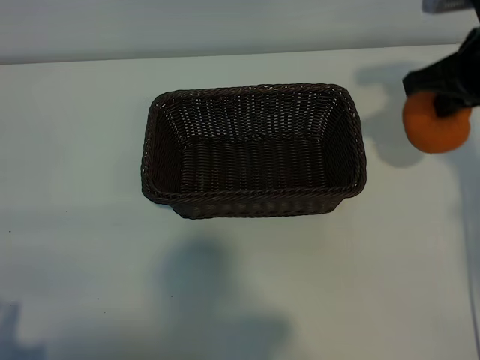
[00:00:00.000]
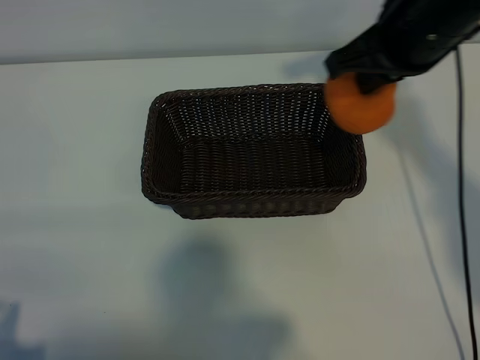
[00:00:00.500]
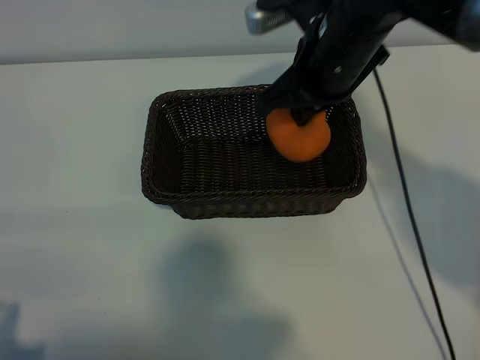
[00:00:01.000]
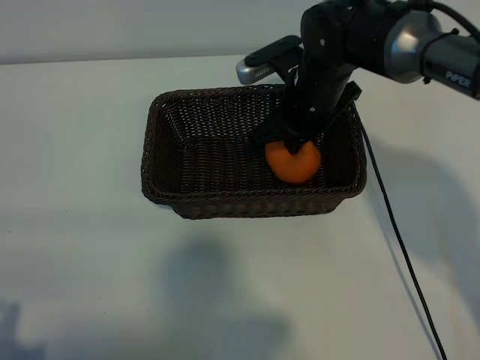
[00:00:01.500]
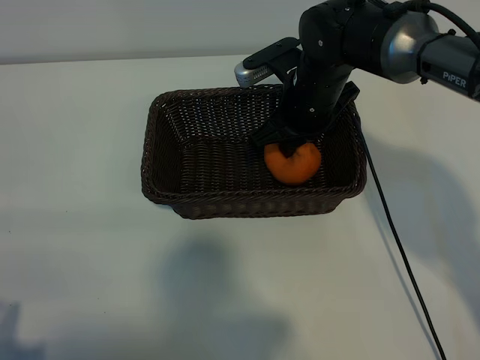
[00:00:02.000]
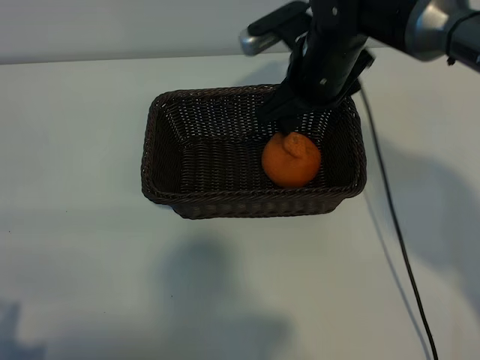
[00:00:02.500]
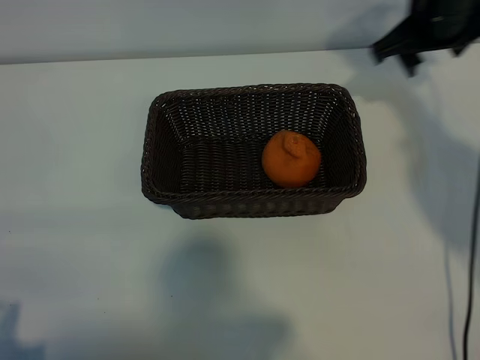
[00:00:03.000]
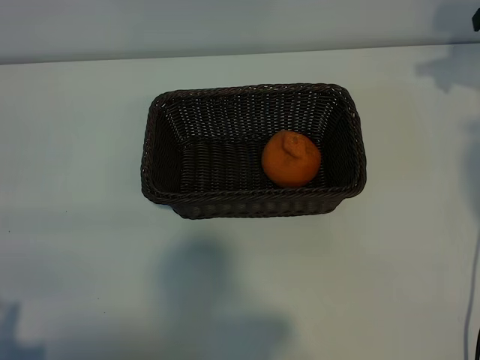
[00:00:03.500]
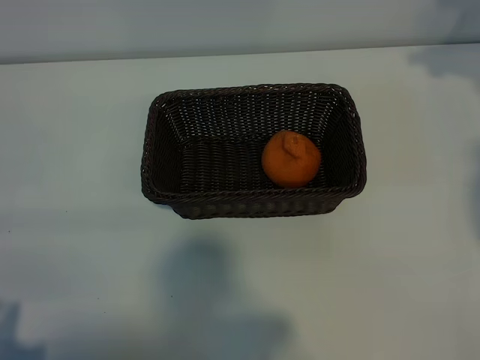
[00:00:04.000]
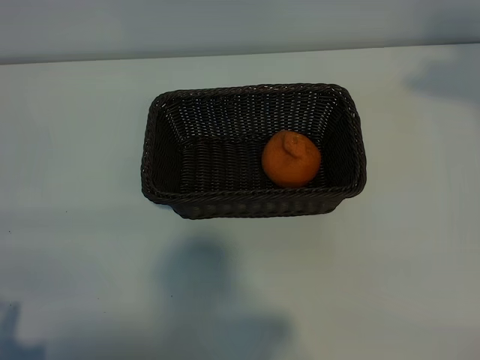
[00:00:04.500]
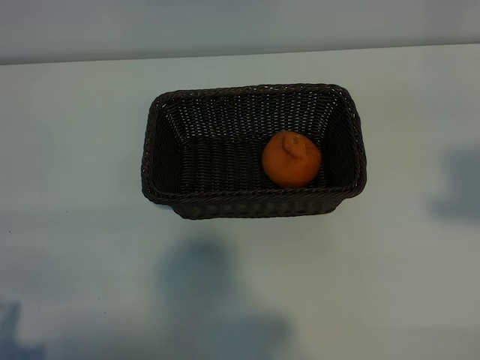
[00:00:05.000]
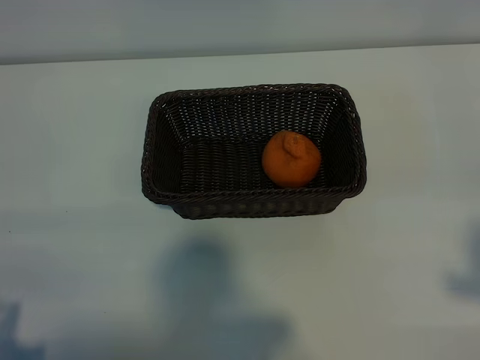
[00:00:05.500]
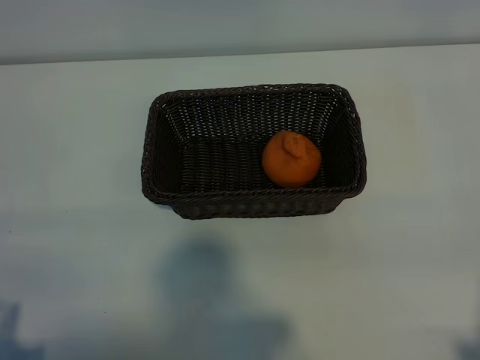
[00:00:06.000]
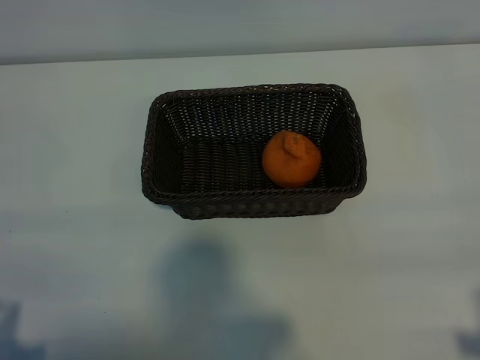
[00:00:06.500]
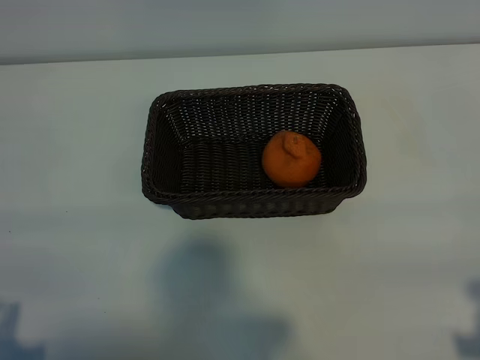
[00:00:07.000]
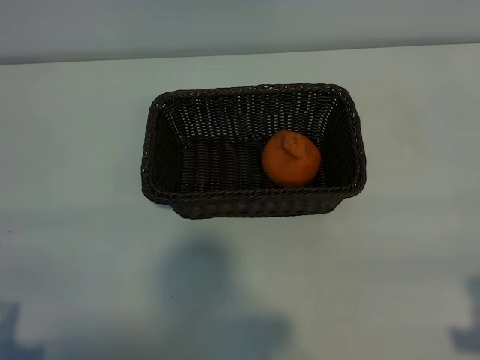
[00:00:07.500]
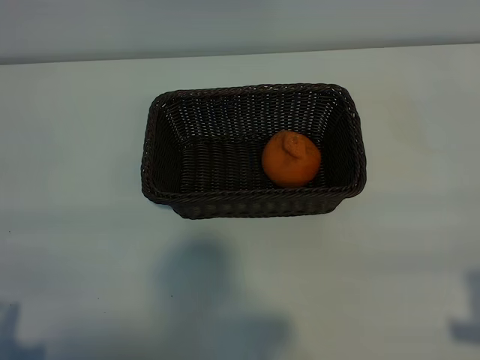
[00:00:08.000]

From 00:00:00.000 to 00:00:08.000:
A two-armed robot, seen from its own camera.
Task of the whole recording: pick up the orange and put it into the basket.
Step, from 00:00:00.000 to 00:00:02.000: Place the orange in the basket with right gripper.

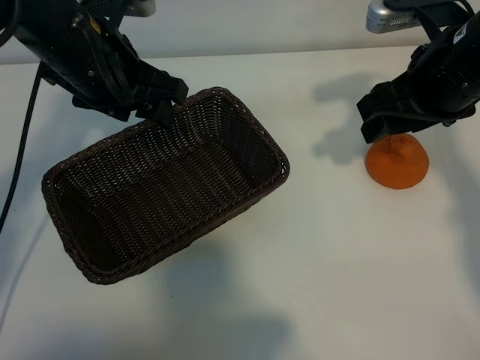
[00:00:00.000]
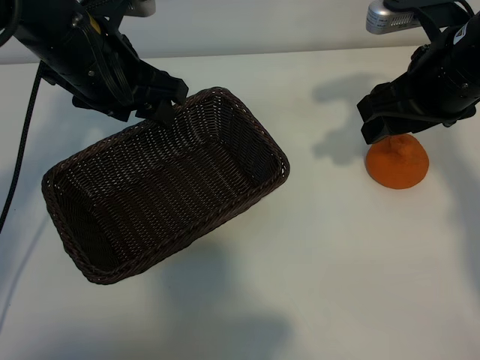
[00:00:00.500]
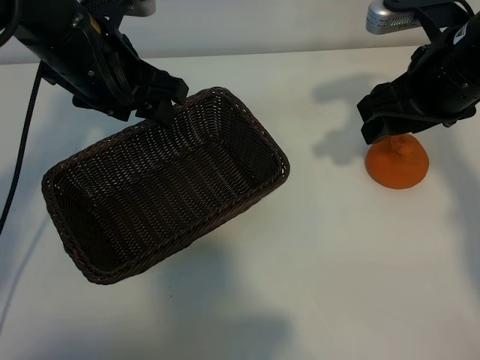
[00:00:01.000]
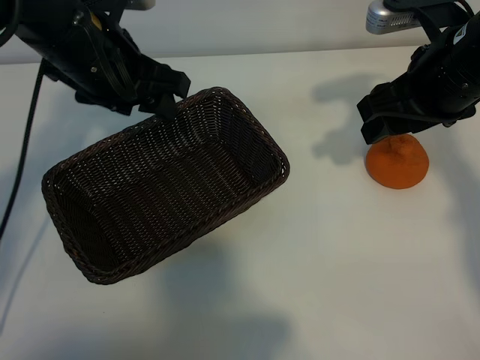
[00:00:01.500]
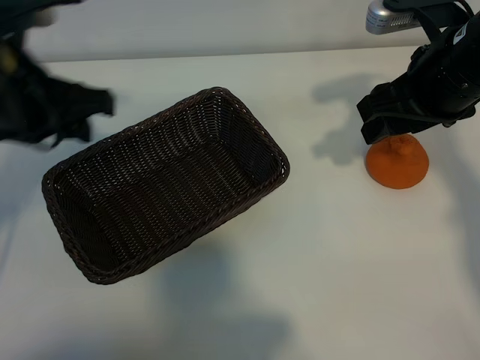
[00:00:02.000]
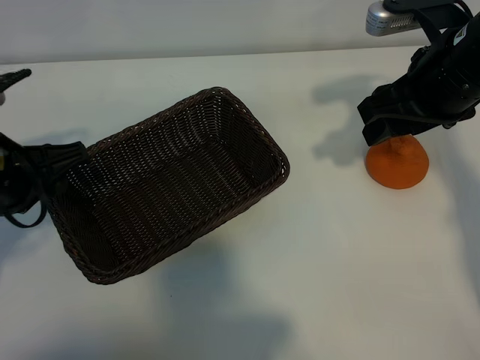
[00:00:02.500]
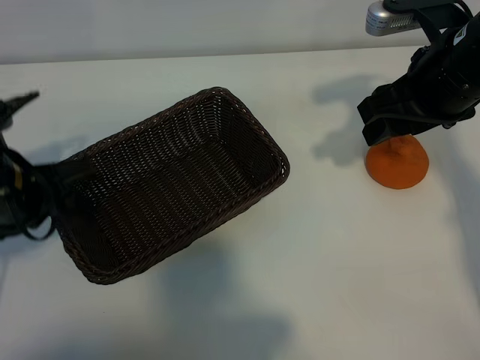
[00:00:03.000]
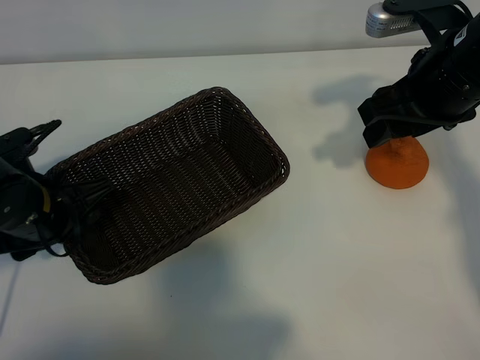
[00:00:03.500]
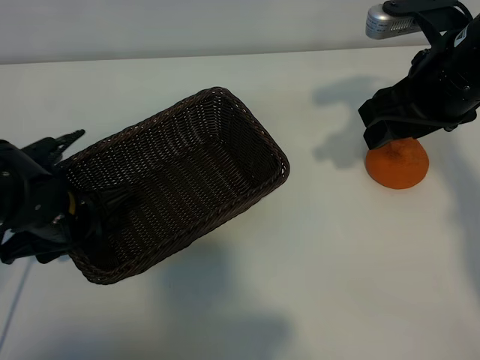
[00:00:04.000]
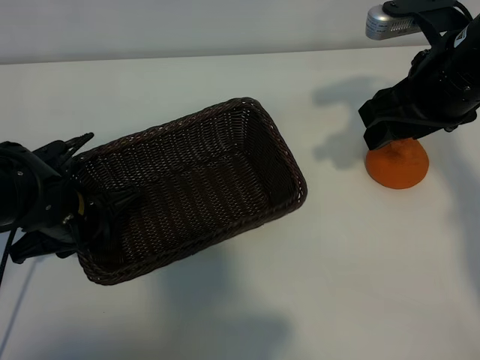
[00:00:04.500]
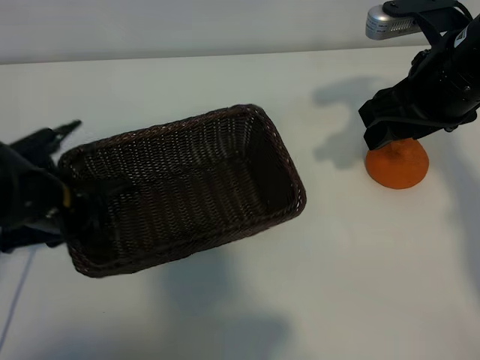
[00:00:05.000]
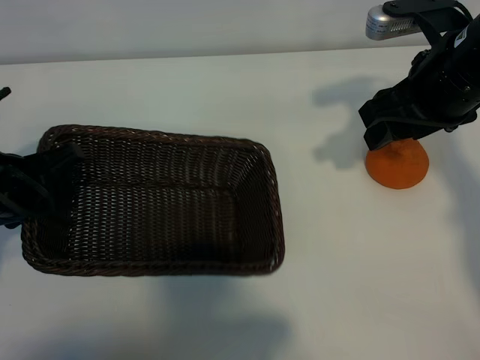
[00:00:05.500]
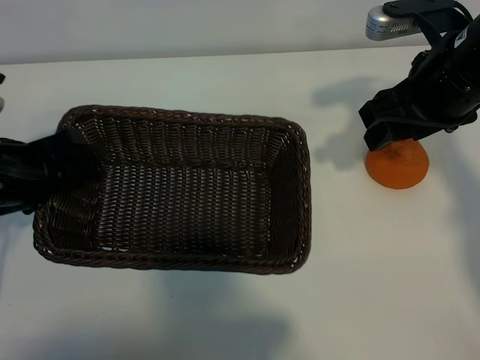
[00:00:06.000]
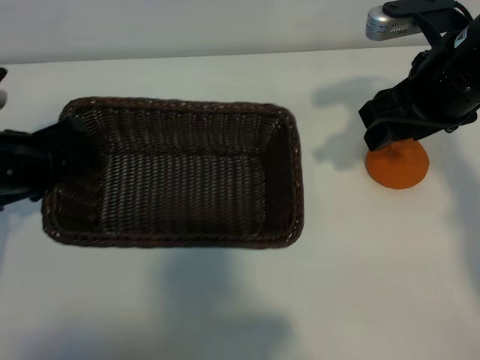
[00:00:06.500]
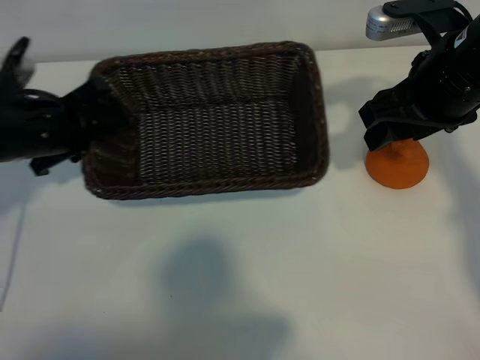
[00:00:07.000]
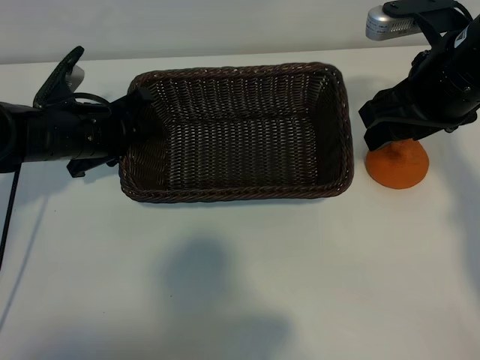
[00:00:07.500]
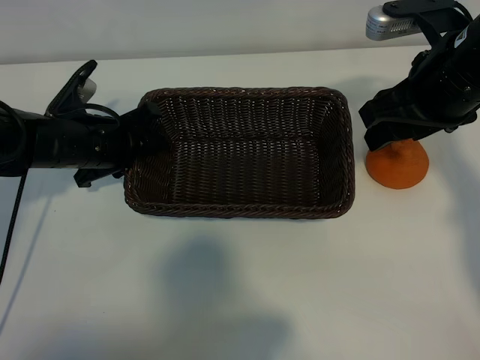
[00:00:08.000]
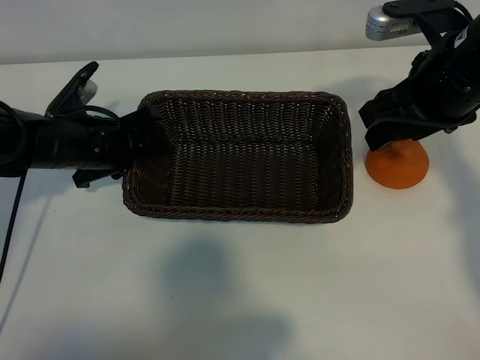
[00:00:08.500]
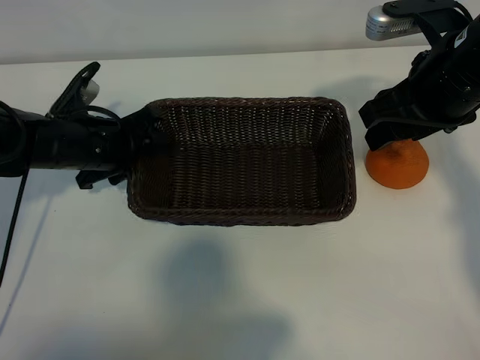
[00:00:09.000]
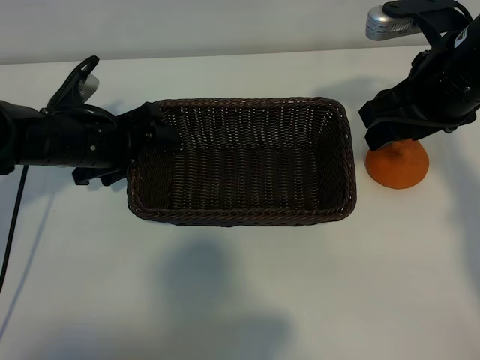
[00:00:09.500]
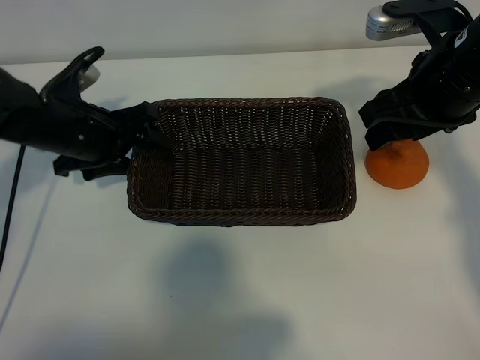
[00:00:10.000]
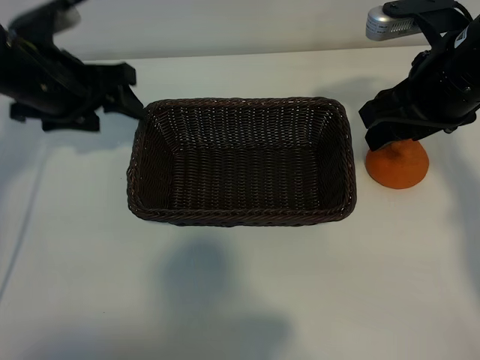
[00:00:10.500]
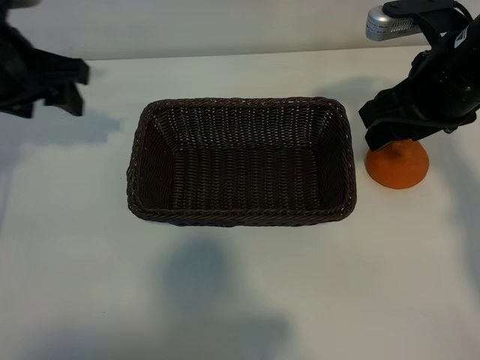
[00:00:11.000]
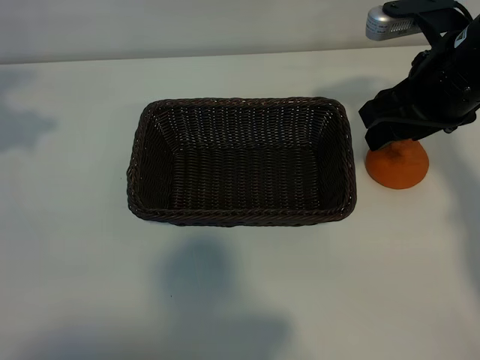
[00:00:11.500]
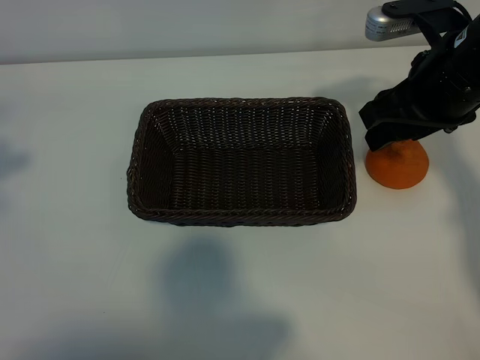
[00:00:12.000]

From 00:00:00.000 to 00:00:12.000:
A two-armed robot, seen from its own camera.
Task of the whole recording: pick up the orange and put it into the basket.
Step, from 00:00:01.500 to 00:00:04.000: Grasp the basket with left gripper.
Step, from 00:00:04.500 to 00:00:08.500: Place the basket in the center of view with left gripper.

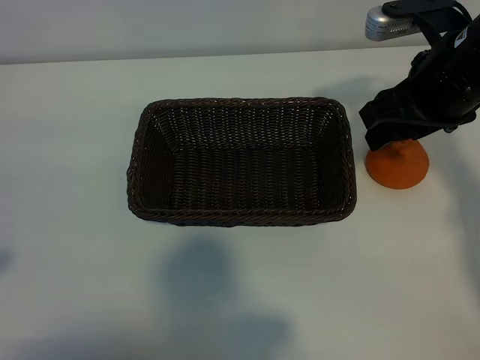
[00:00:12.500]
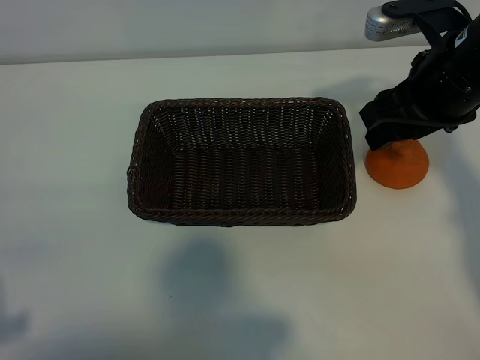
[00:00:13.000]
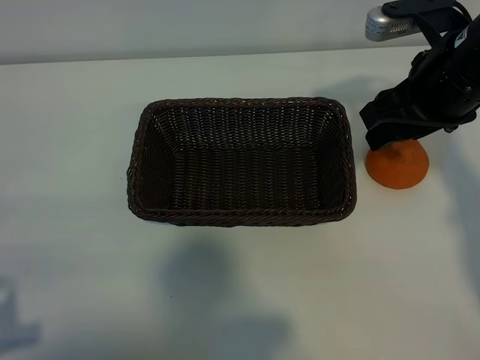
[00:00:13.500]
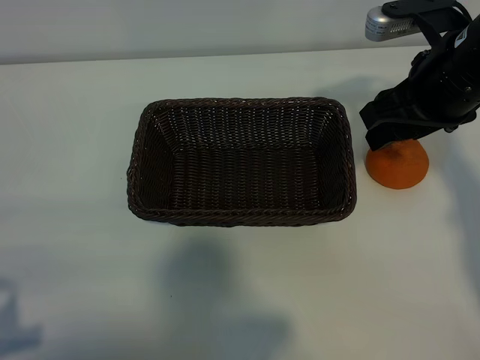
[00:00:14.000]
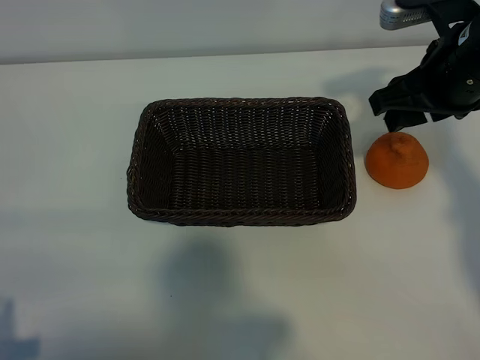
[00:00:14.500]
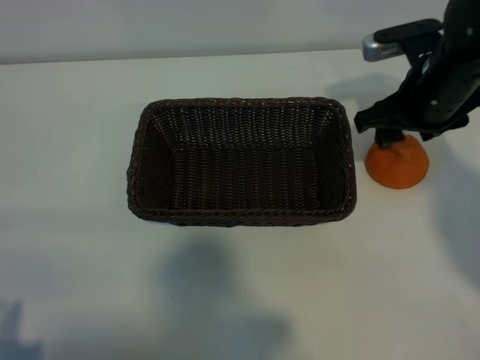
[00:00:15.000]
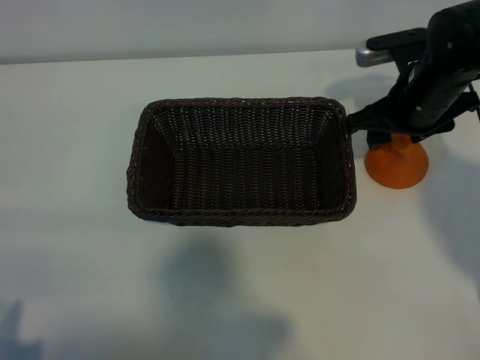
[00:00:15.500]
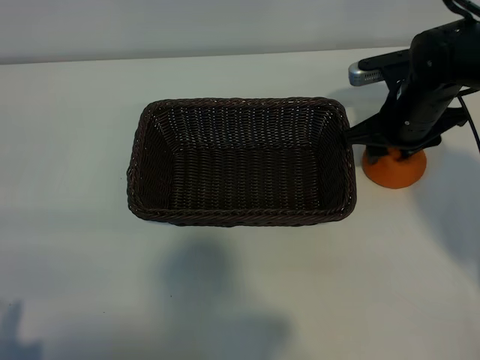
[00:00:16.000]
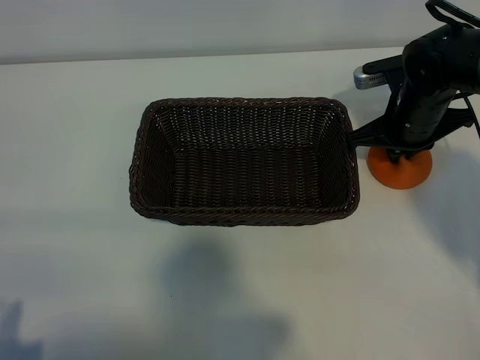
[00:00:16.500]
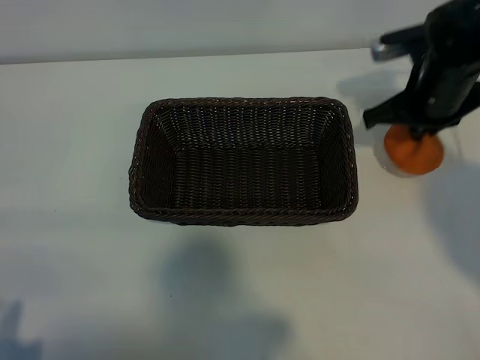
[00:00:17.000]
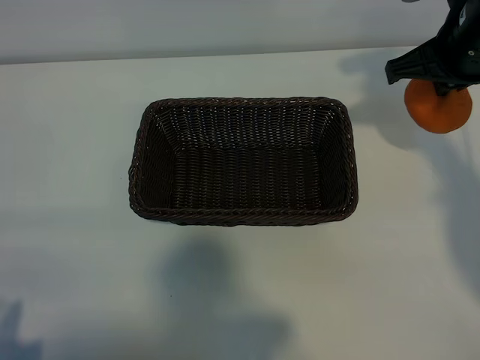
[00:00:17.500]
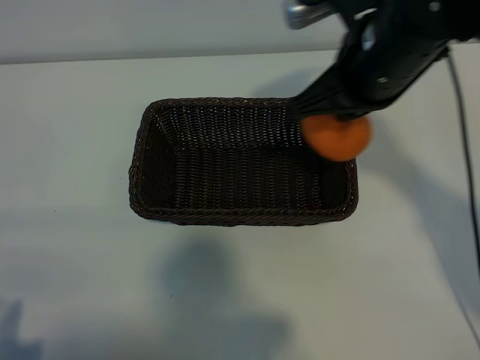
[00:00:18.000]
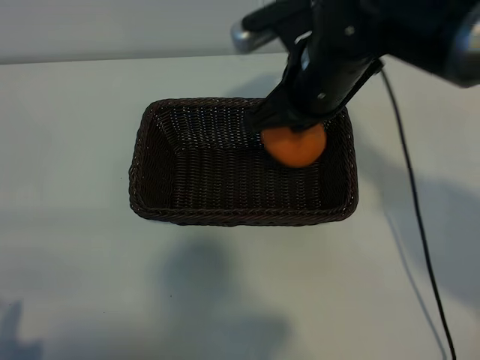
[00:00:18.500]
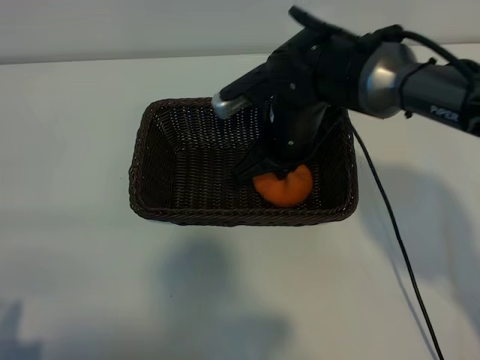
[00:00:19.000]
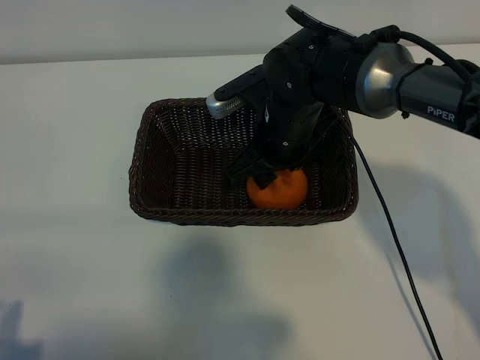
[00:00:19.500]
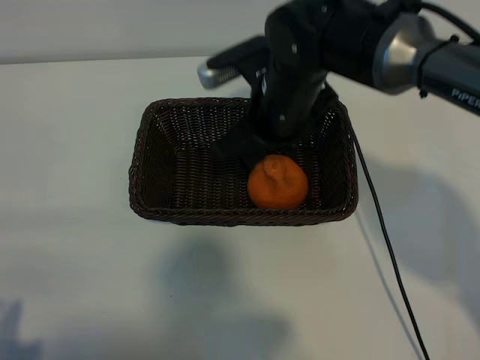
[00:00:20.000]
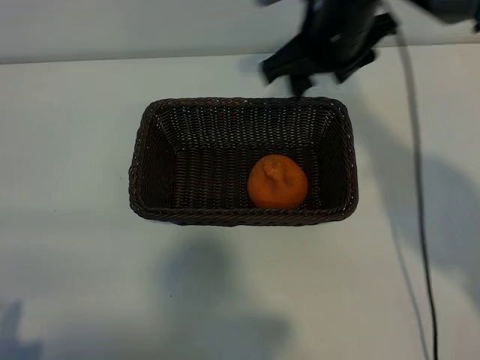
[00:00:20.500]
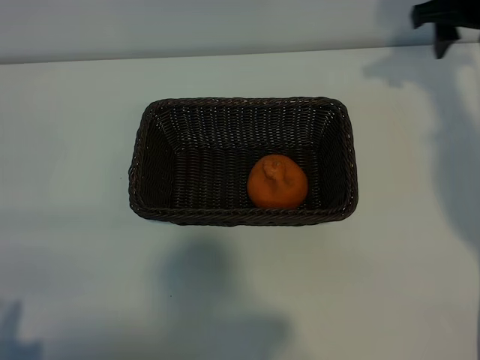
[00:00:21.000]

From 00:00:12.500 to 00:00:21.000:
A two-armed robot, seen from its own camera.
Task of the whole recording: pick up the orange and put it into the basket.
Step, from 00:00:12.500 to 00:00:16.000: Grasp the orange with right gripper.
Step, from 00:00:16.500 to 00:00:19.000: Place the orange in the basket with right gripper.
